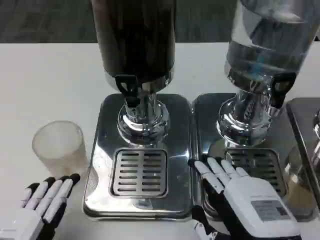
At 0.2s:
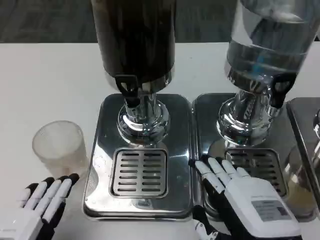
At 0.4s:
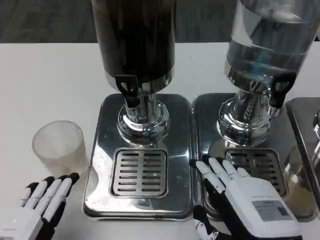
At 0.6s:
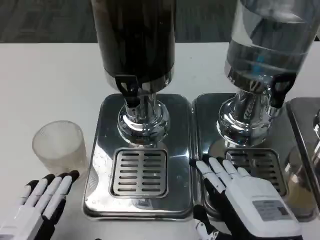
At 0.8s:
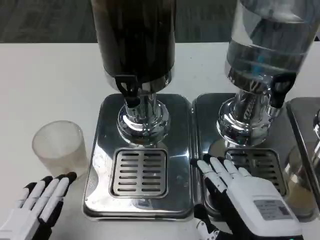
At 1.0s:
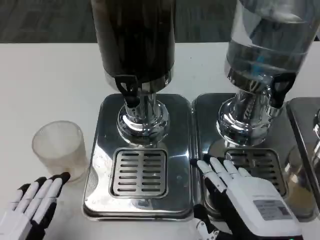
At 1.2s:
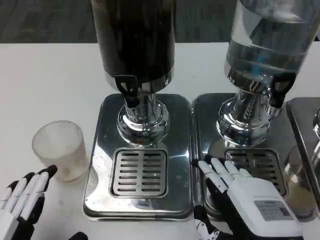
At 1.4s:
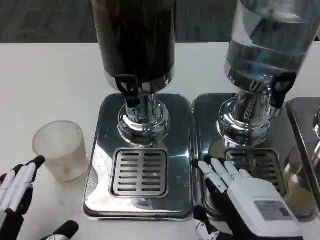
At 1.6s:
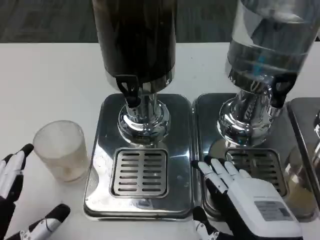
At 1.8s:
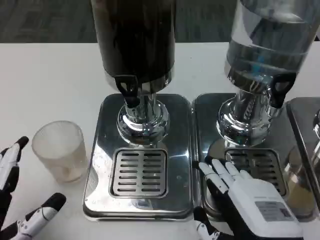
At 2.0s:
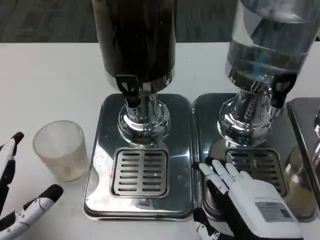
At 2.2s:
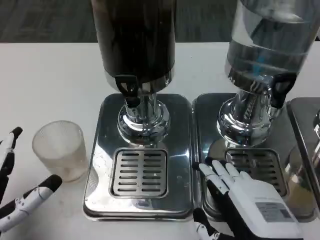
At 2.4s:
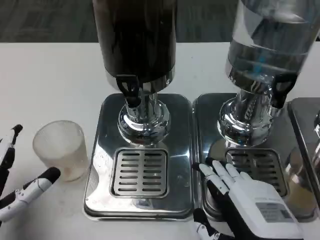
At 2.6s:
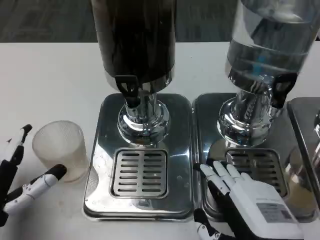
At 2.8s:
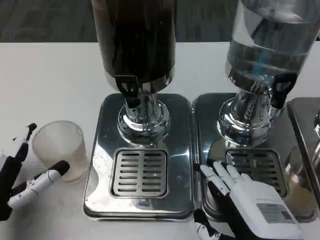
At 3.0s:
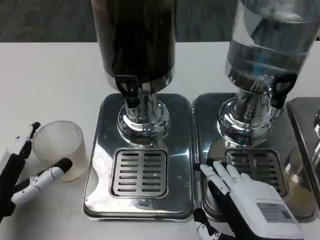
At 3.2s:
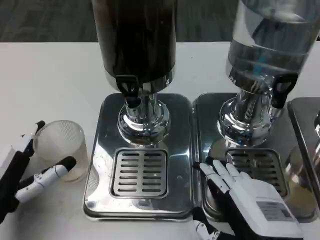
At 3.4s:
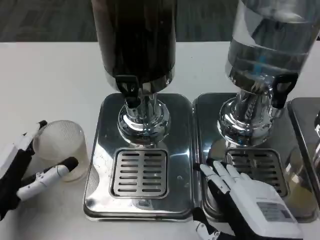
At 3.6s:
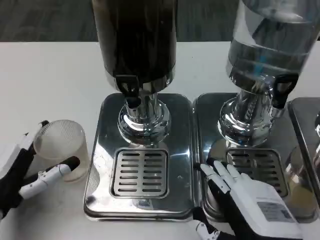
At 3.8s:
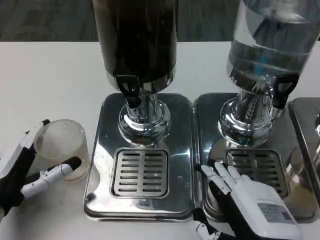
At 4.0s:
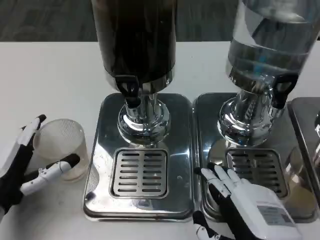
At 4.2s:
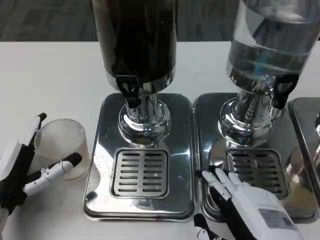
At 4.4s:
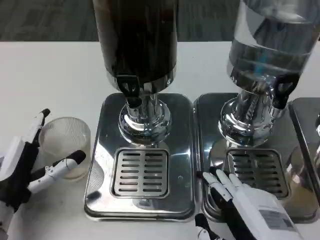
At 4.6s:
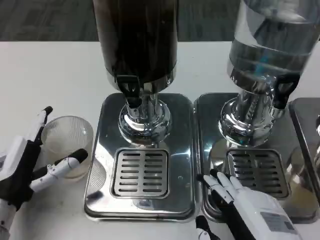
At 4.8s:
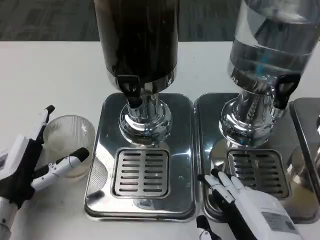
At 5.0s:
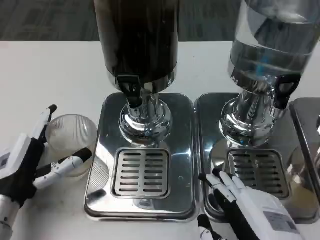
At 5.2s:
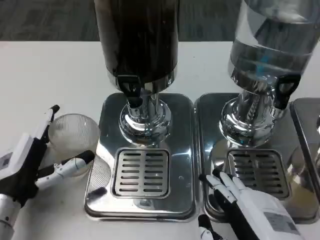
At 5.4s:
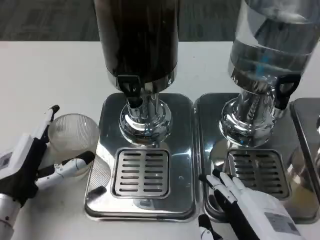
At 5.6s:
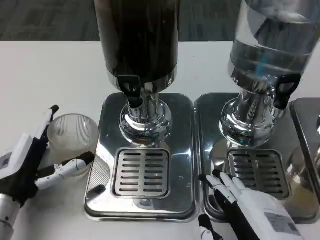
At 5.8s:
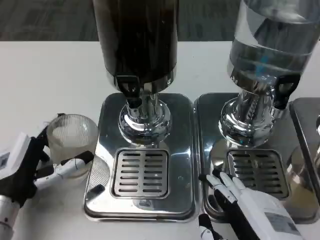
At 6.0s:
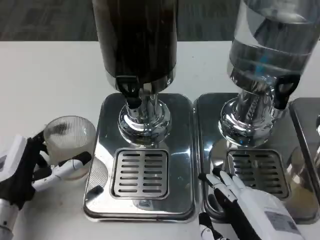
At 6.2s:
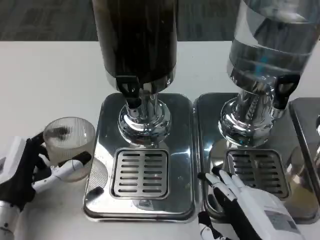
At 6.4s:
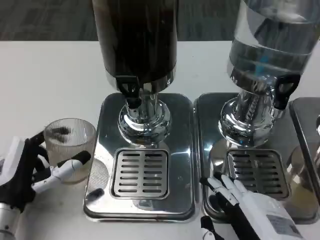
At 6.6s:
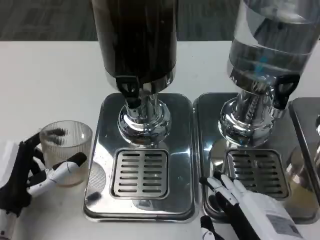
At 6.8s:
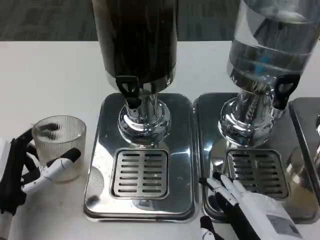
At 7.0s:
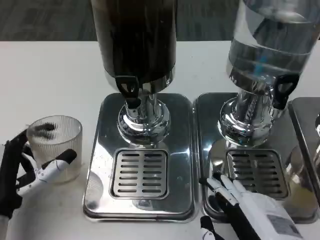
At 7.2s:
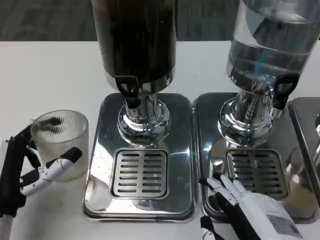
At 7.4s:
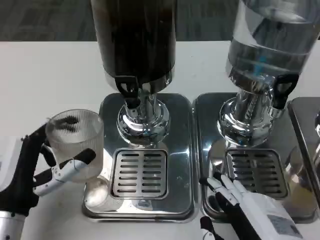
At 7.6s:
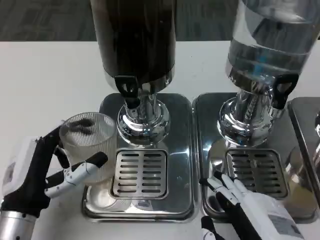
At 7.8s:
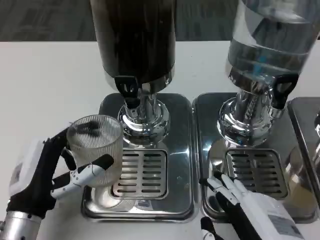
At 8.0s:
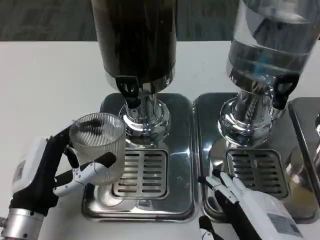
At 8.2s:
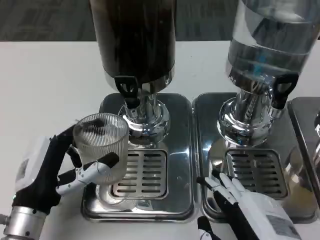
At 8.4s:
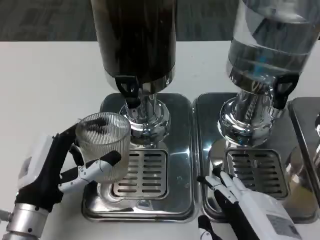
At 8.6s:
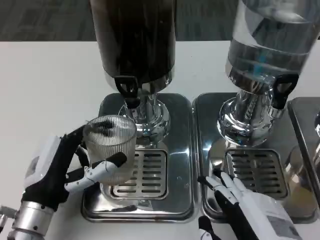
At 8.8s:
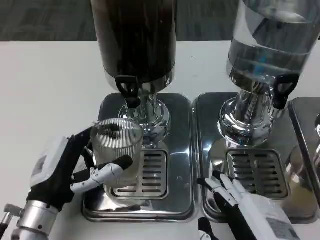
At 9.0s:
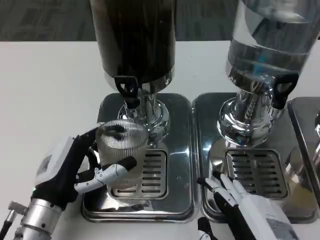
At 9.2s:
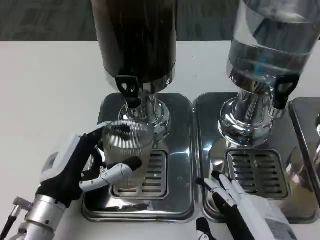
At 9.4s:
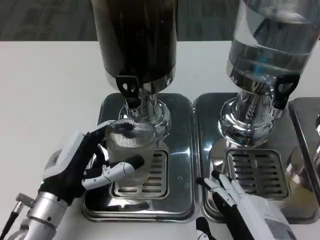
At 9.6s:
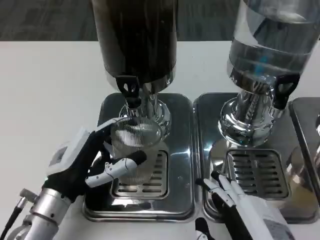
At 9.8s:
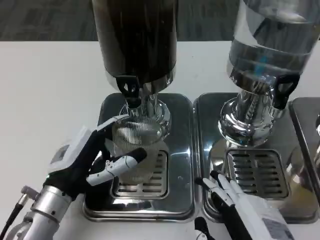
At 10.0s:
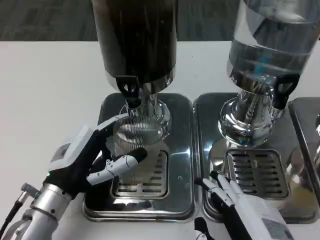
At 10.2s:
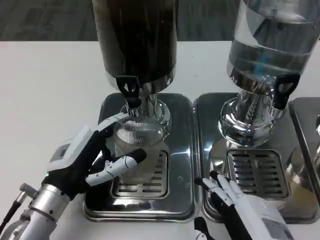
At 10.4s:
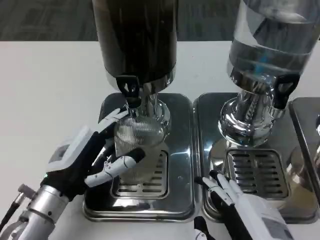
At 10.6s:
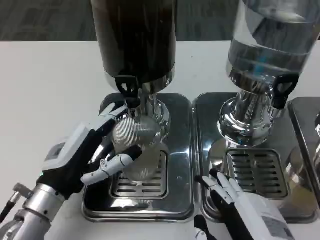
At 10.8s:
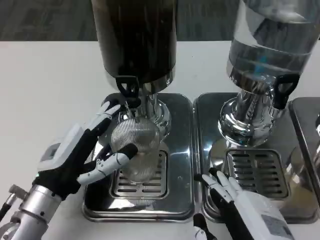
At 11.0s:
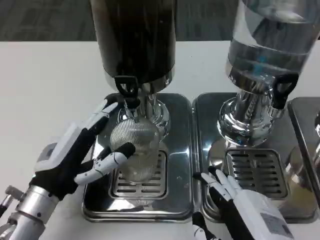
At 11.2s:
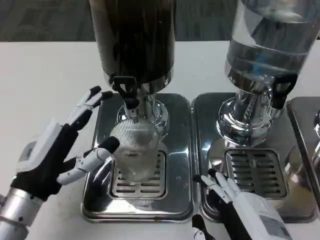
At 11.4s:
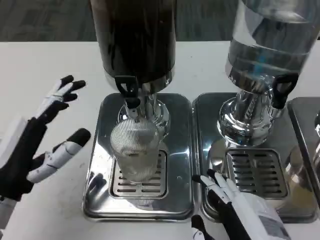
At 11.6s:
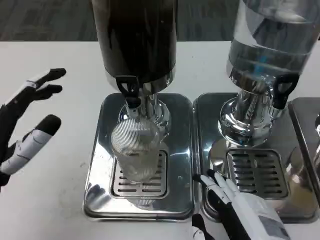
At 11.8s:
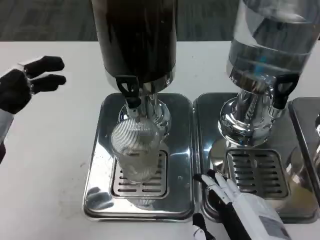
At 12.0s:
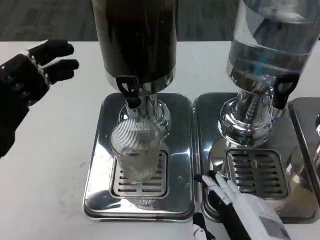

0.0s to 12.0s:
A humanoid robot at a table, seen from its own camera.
Task of the whole recording: Grasp the cup under the faucet to collect the drink, then remove the cup.
1.6s to 3.0s: The left hand travels forward by roughly 10 cm.
3.0s to 4.4s: The hands stay close to where they were, moving slightly.
4.4s to 6.0s: Both hands stay about where they are.
7.6s to 10.4s: The hands move only a little.
10.4s to 12.0s: The left hand moves upward and to the left, roughly 15 cm.

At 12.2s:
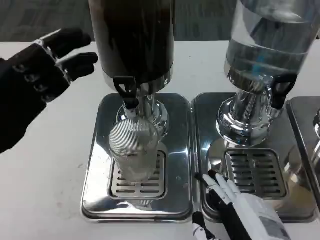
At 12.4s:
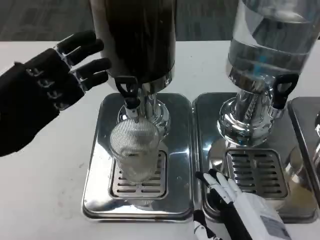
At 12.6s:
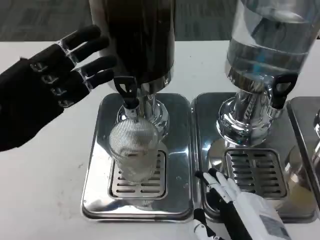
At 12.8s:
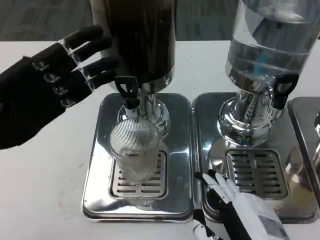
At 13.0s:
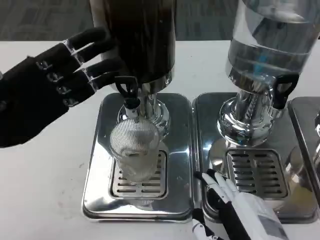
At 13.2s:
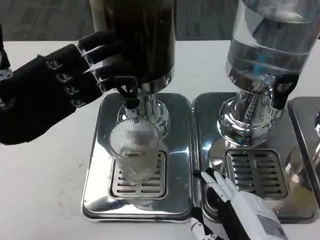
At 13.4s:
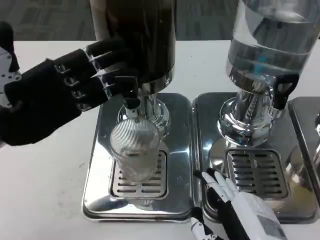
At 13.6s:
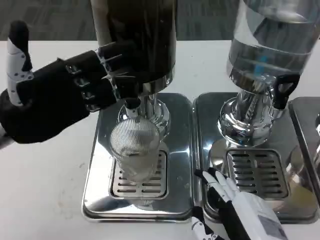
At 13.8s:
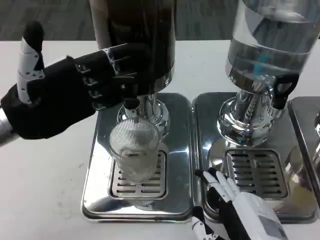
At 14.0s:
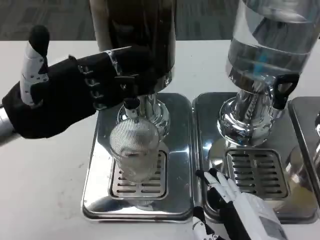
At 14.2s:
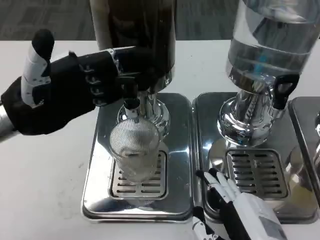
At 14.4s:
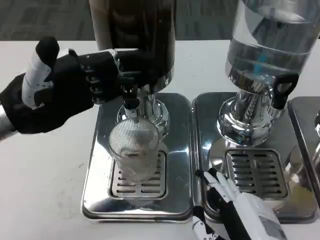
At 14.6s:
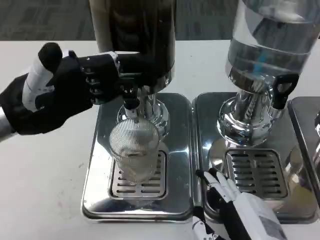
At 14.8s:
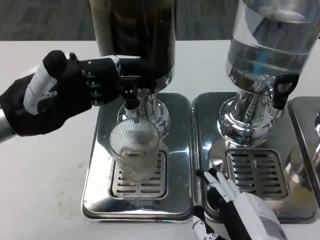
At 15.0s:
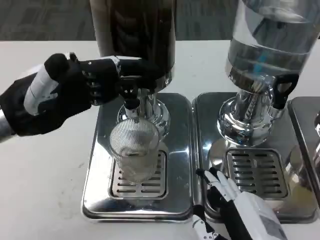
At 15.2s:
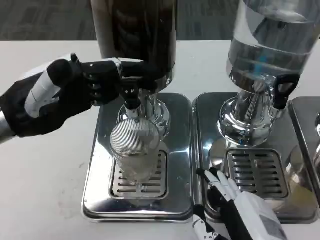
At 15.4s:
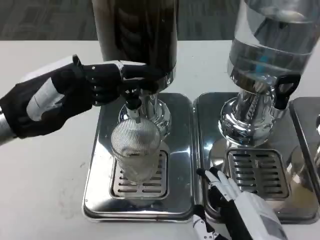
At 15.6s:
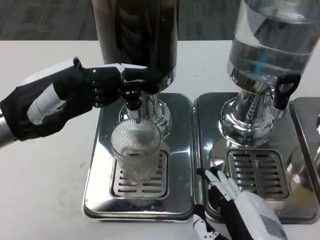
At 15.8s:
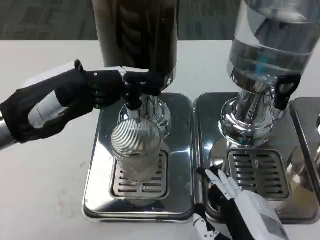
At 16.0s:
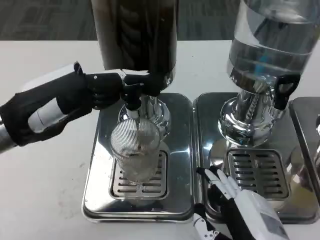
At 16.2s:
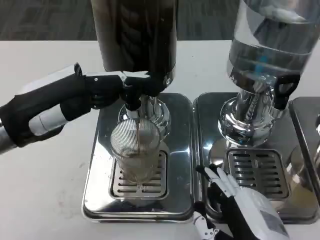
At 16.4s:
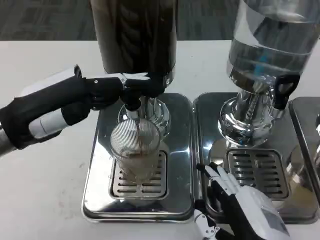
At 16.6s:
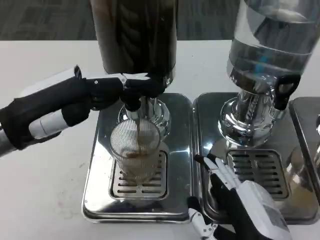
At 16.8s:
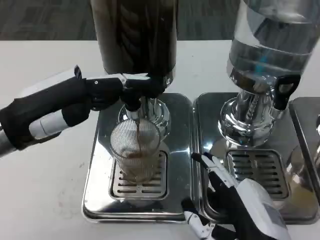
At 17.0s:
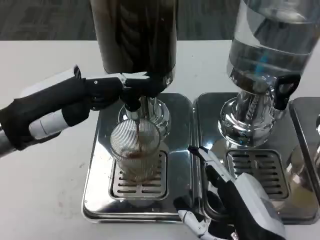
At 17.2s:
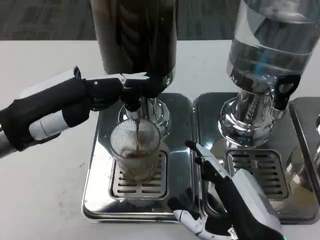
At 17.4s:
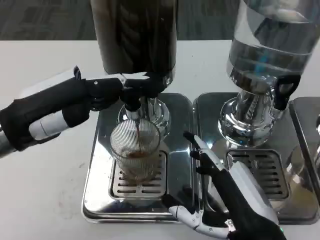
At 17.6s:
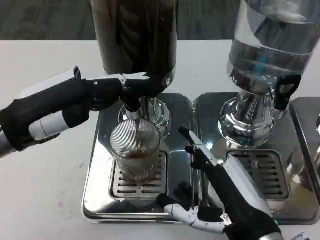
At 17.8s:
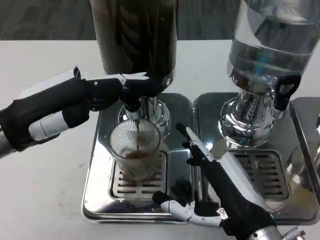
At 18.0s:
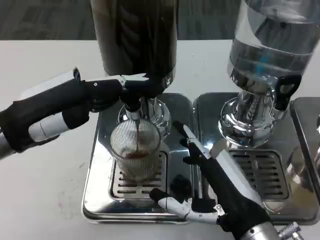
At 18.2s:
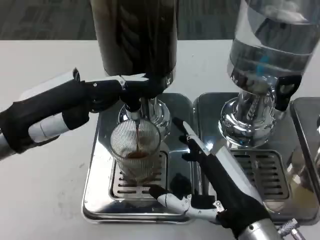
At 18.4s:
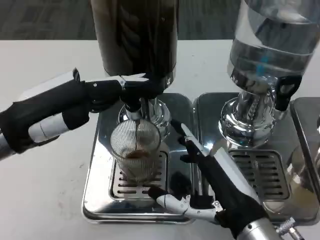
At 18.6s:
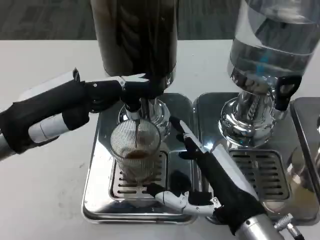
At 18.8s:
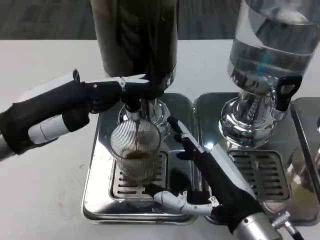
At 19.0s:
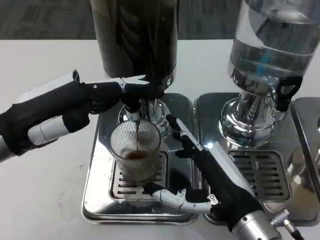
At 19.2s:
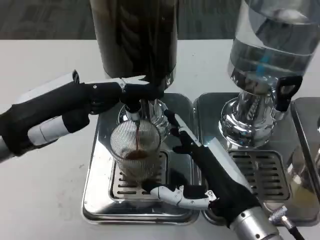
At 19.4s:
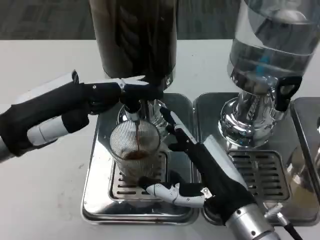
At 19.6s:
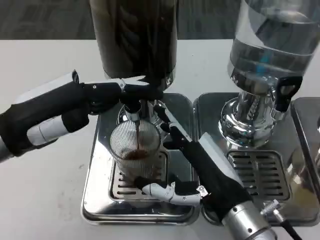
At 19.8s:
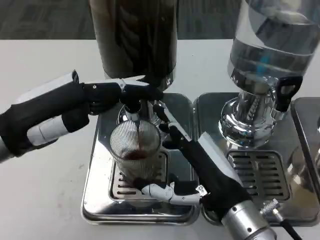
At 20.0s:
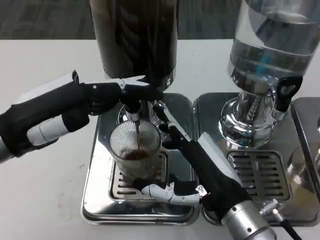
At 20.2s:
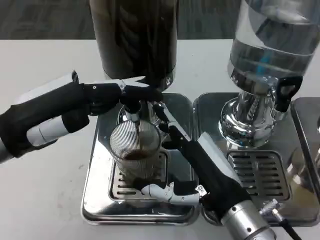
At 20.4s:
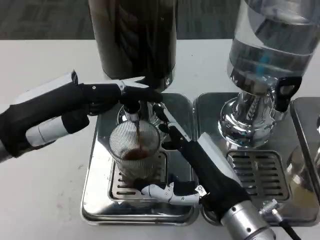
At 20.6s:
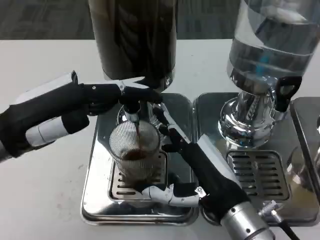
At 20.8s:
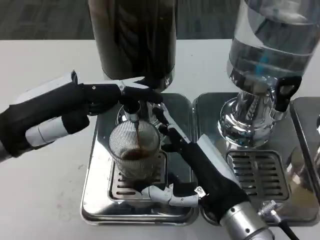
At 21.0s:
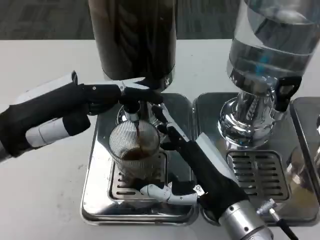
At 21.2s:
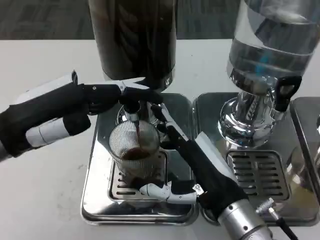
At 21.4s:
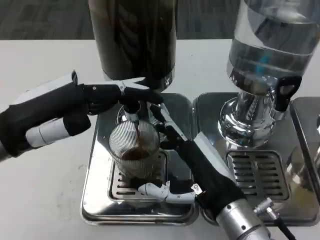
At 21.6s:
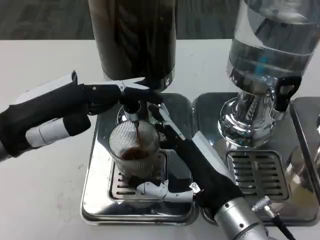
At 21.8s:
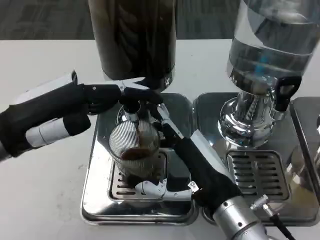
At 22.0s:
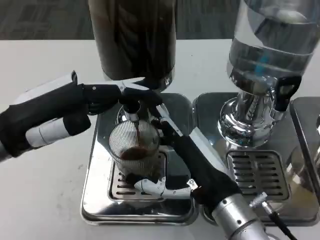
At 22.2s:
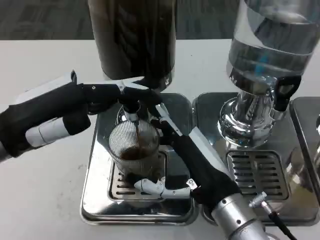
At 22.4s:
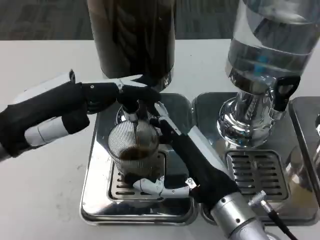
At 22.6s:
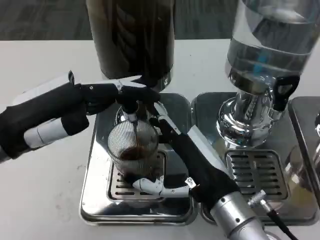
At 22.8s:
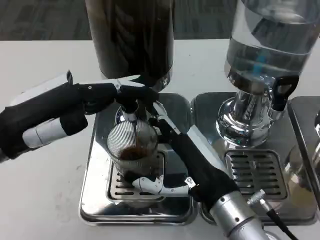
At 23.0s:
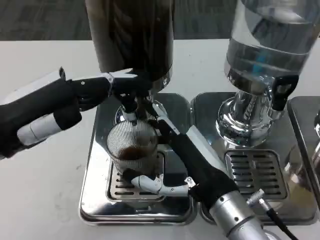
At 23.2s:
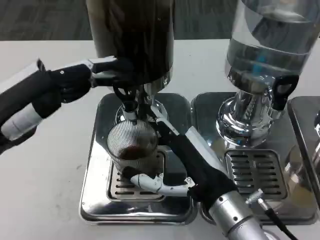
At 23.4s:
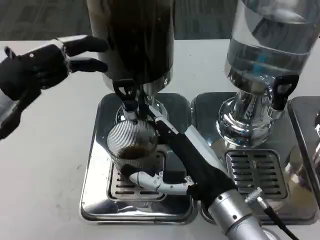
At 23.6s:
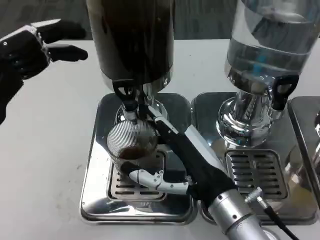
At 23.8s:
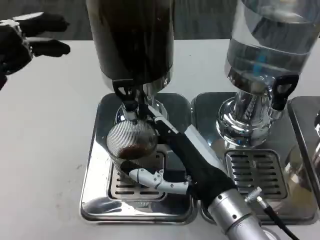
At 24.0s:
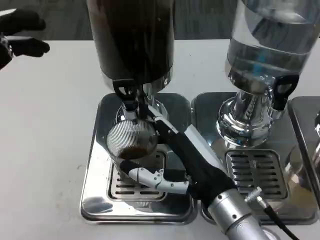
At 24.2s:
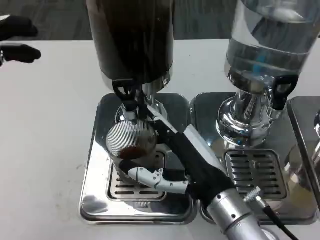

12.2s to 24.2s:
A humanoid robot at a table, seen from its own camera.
Task of the whole recording: Grasp the cup under the faucet to collect the drink, then remove the cup.
12.2s to 13.8s: The left hand is displaced forward by roughly 5 cm.
15.2s to 16.6s: The hands move only a little.
16.6s to 18.2s: The right hand heads forward, covering some 5 cm.
18.2s to 19.8s: The hands make only small movements.
19.8s to 21.2s: The two hands keep their place.
21.2s to 22.6s: The two hands keep their place.
22.6s to 24.2s: The left hand shifts by approximately 5 cm.
